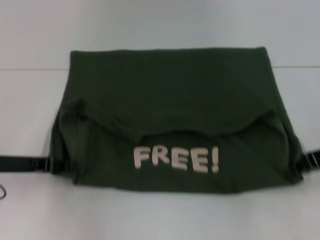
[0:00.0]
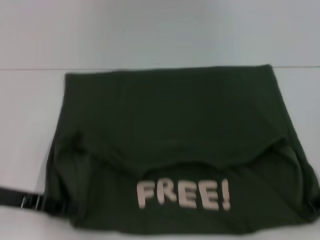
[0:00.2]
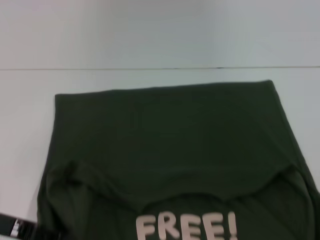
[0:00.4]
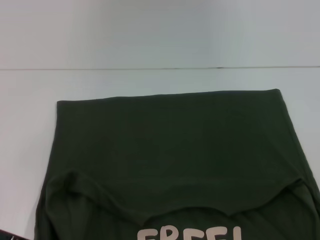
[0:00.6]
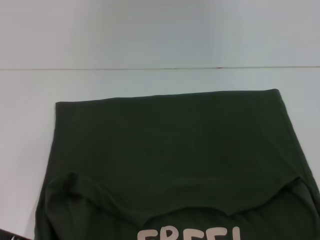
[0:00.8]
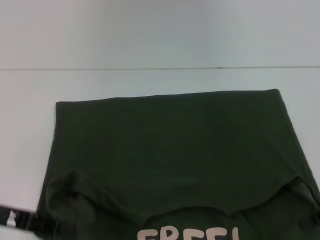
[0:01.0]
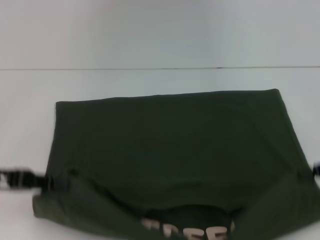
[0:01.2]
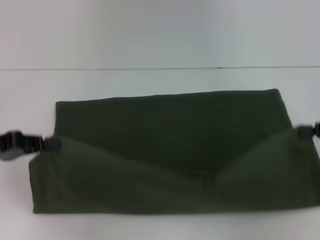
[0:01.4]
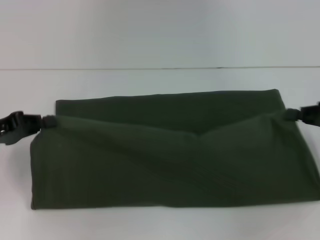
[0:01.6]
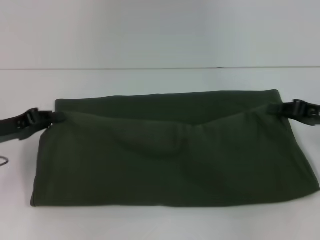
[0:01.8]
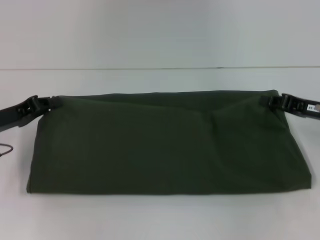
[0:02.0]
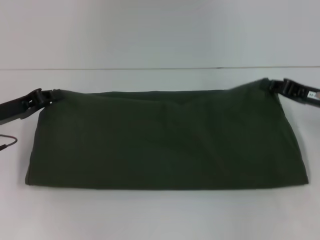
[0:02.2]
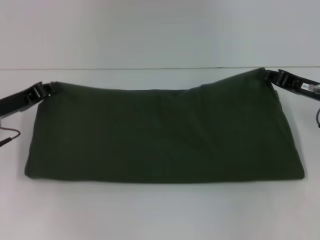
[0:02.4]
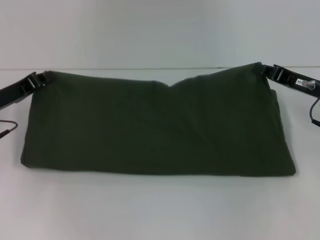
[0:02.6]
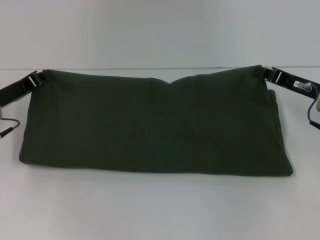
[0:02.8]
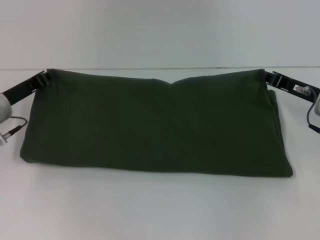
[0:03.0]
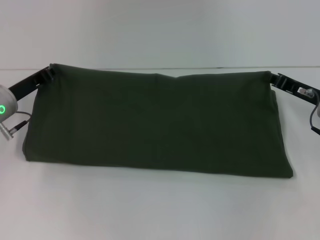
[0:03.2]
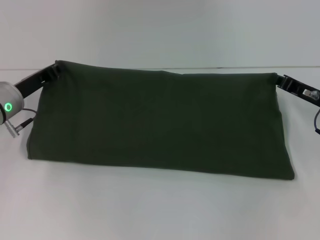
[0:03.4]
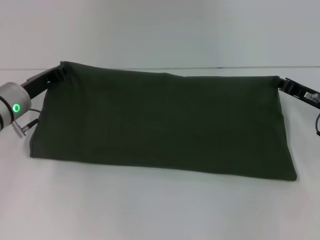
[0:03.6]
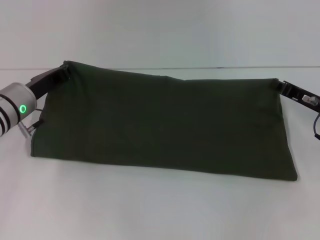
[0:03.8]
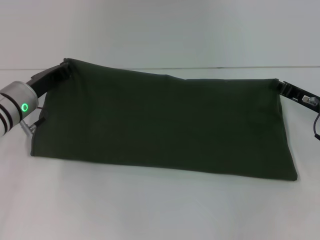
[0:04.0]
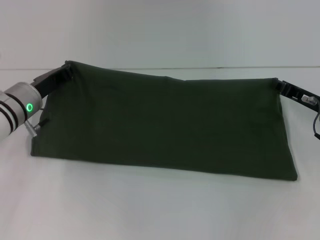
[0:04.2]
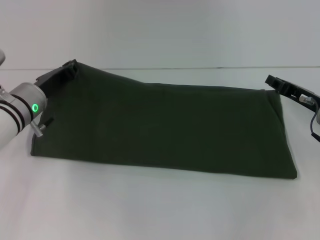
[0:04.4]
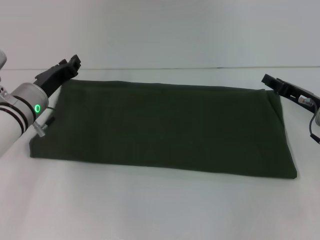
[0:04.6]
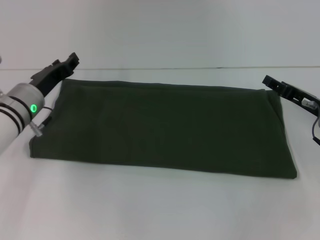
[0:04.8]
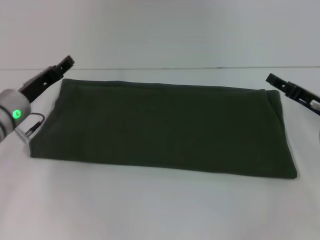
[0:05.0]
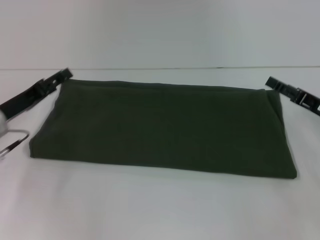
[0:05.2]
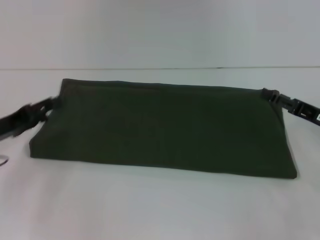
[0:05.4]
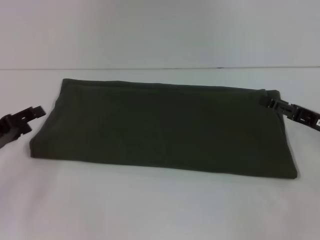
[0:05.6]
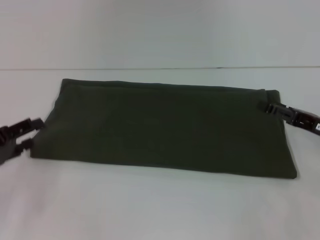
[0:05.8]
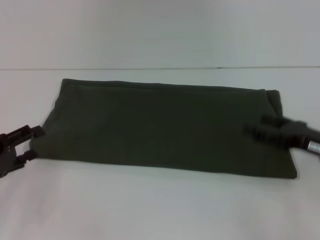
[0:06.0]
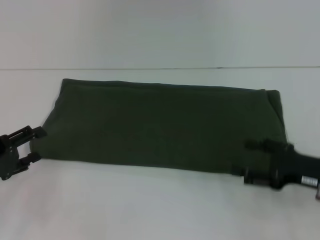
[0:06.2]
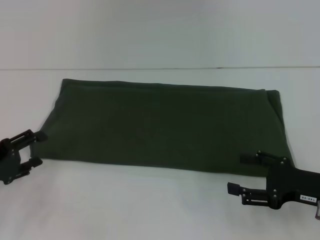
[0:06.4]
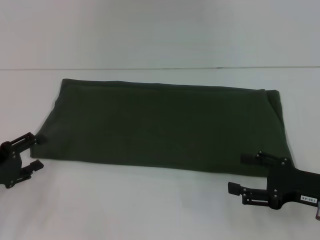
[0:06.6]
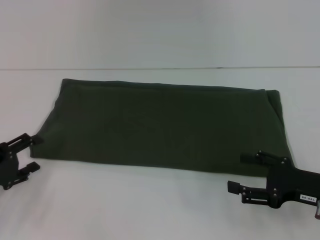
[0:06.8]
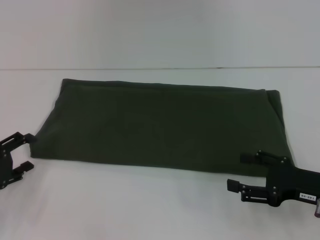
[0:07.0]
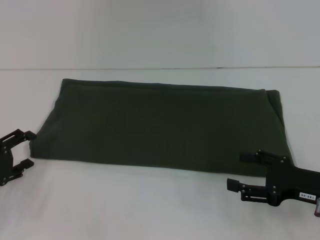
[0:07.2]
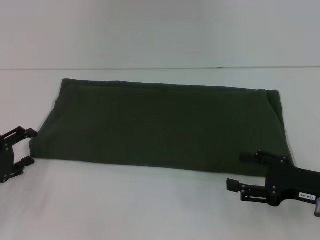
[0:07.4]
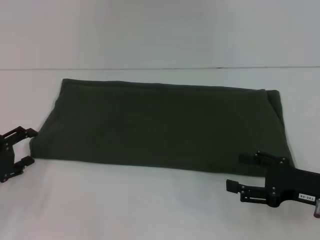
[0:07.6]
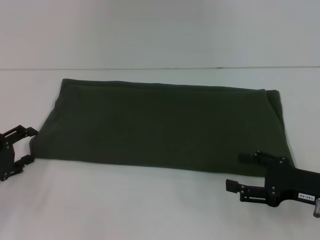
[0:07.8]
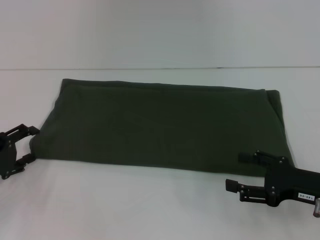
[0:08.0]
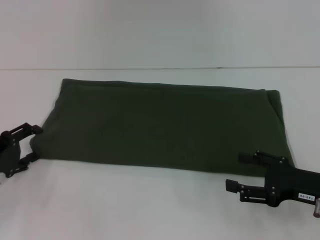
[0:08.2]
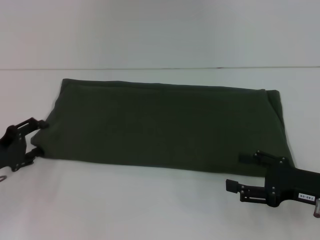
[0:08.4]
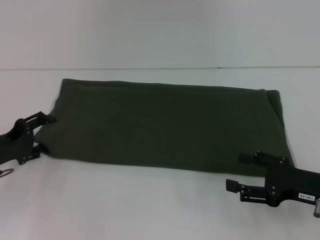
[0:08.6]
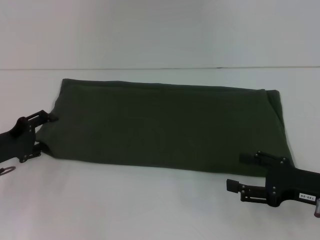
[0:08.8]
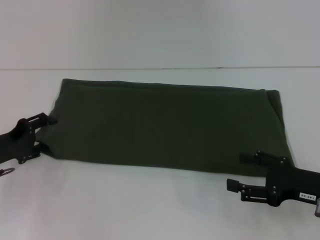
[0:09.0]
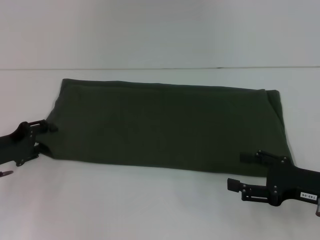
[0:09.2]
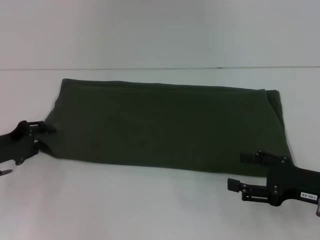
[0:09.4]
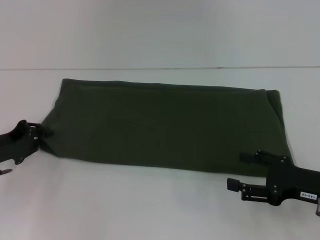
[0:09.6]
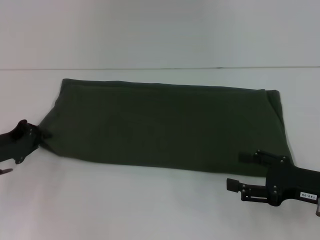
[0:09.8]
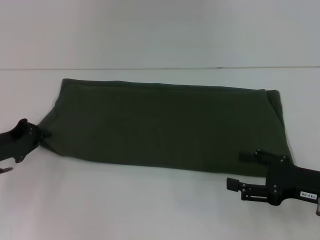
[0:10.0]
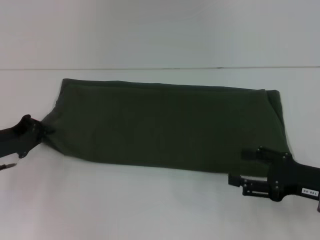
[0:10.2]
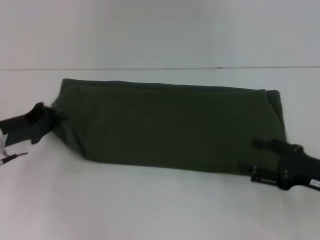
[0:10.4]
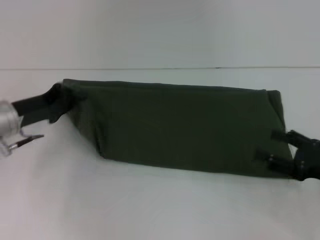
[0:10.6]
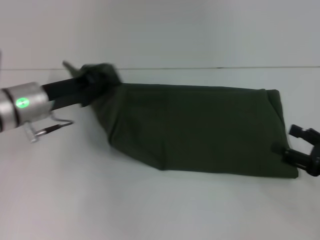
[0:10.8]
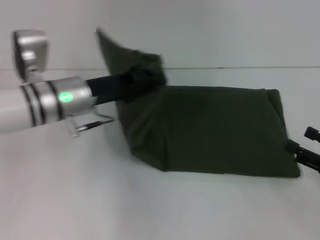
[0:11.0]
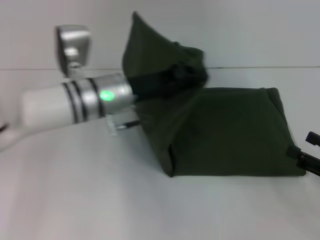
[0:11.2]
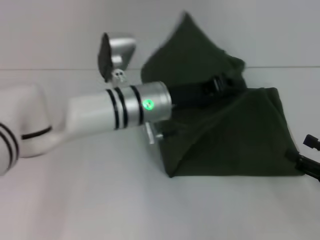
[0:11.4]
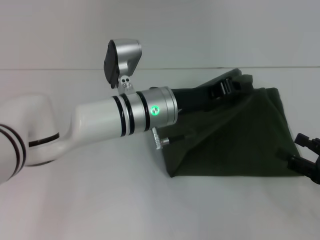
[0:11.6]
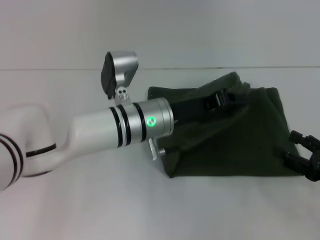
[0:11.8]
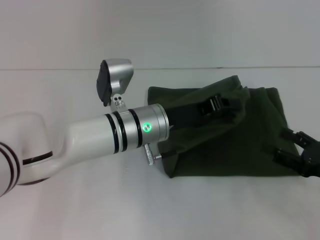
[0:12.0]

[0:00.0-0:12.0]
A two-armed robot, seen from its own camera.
Step, 0:00.8 to 0:04.6: Fold the clothes with your right hand.
0:01.6 to 0:03.0: The right gripper heads to the left, covering roughly 5 cm. Meanwhile the left gripper is displaced forward by roughly 5 cm.
0:03.0 to 0:04.4: The left gripper moves to the right, about 5 cm.
0:04.4 to 0:06.0: The right gripper travels backward by some 5 cm, and opens, while the left gripper goes some 20 cm backward and to the left, and opens.
0:06.0 to 0:07.6: The right gripper shifts by approximately 5 cm.
0:07.6 to 0:09.0: The grippers make only small movements.
0:09.0 to 0:10.4: The left gripper closes up.
0:10.4 to 0:12.0: The left gripper moves to the right, approximately 25 cm.

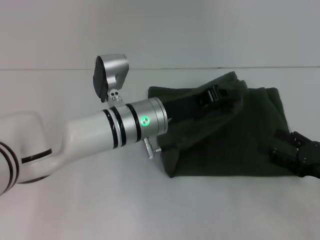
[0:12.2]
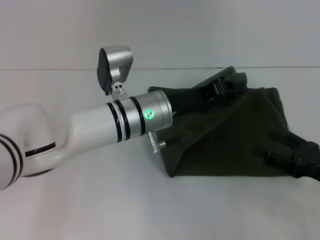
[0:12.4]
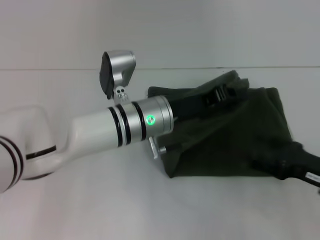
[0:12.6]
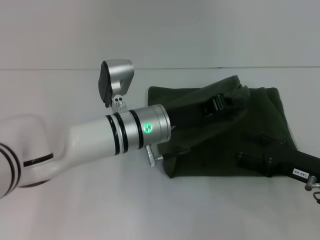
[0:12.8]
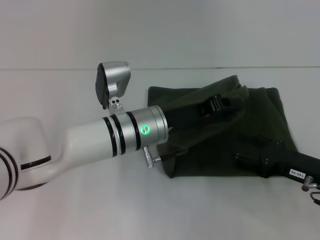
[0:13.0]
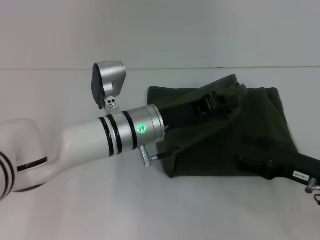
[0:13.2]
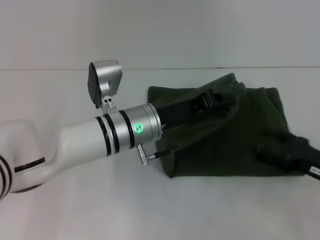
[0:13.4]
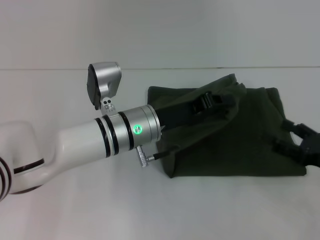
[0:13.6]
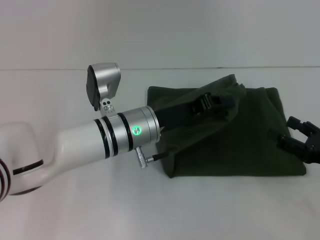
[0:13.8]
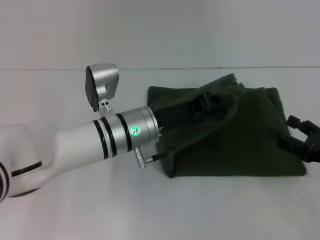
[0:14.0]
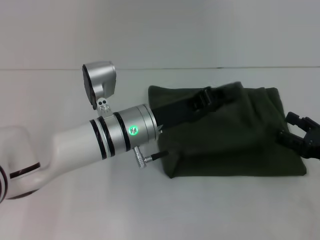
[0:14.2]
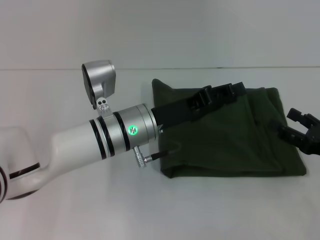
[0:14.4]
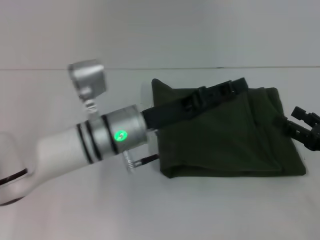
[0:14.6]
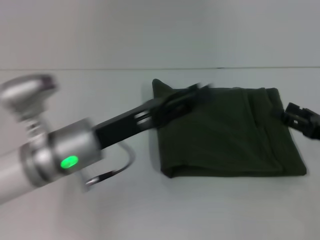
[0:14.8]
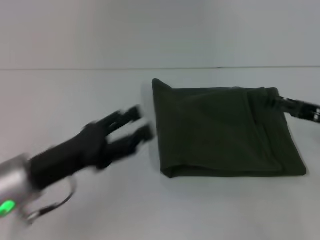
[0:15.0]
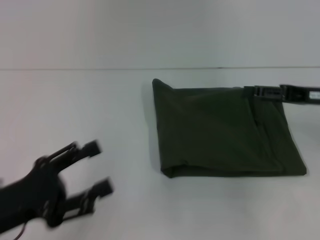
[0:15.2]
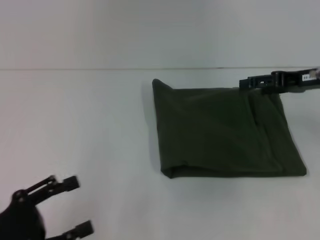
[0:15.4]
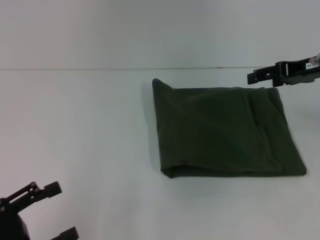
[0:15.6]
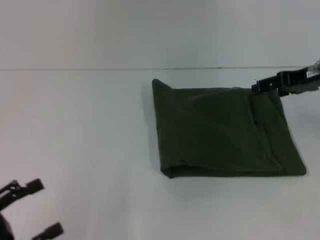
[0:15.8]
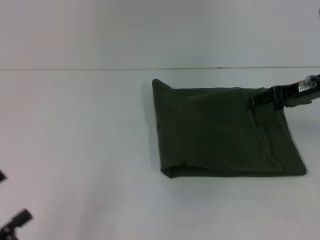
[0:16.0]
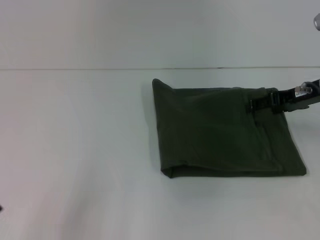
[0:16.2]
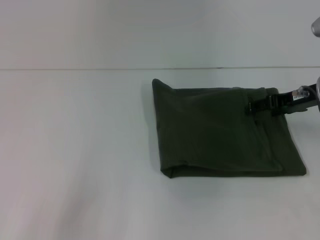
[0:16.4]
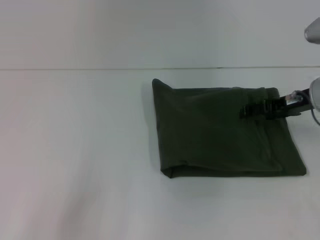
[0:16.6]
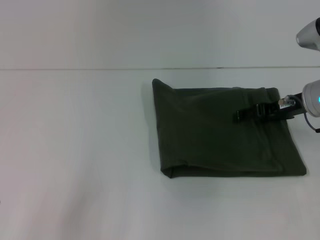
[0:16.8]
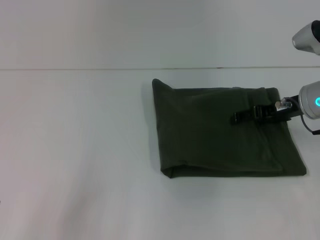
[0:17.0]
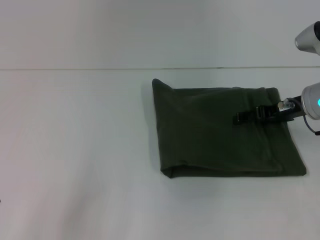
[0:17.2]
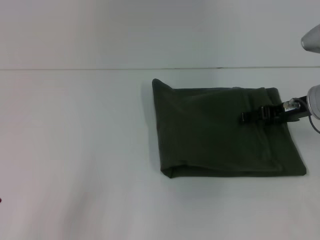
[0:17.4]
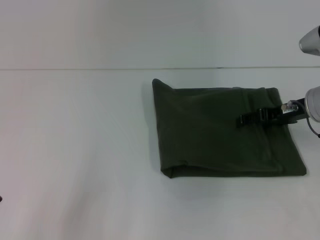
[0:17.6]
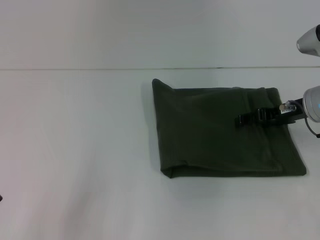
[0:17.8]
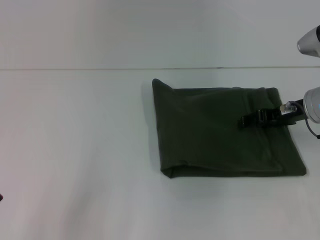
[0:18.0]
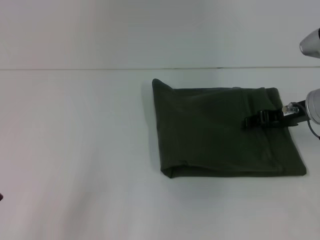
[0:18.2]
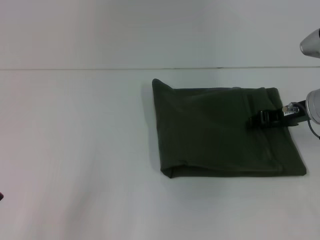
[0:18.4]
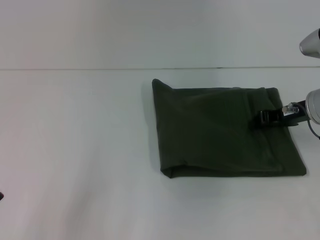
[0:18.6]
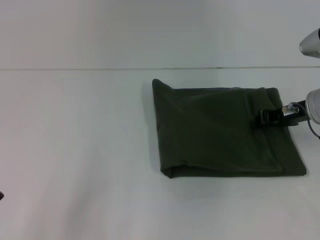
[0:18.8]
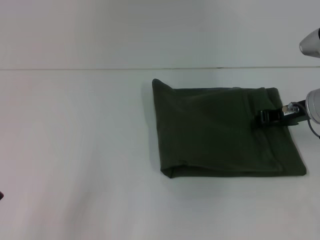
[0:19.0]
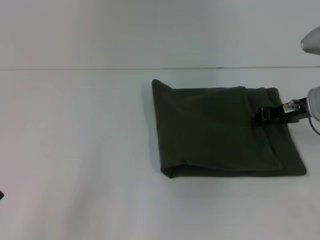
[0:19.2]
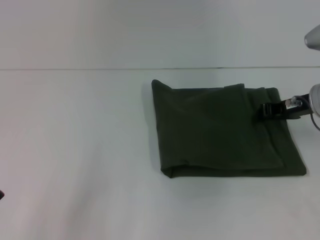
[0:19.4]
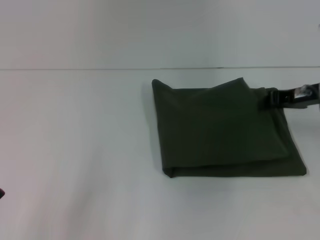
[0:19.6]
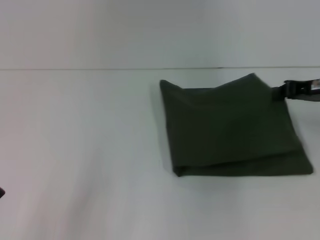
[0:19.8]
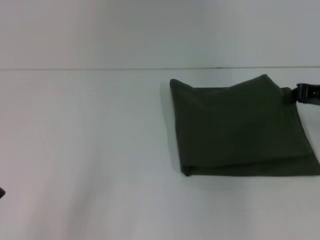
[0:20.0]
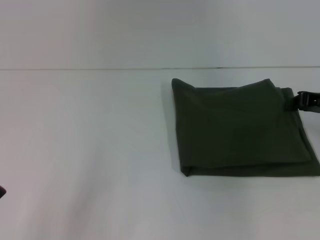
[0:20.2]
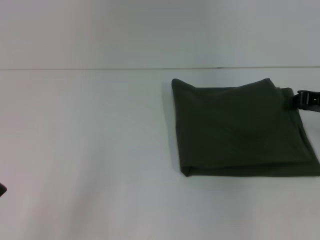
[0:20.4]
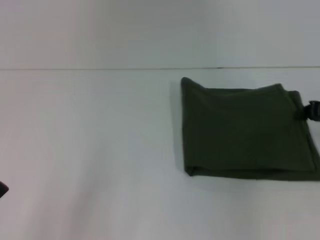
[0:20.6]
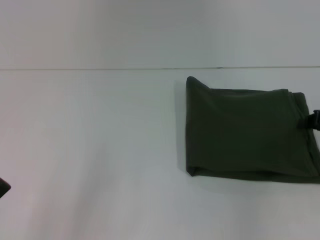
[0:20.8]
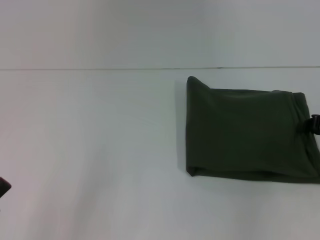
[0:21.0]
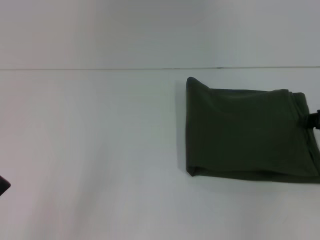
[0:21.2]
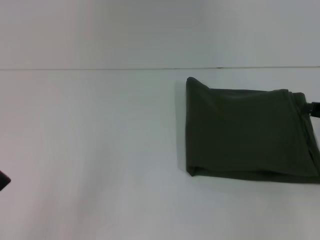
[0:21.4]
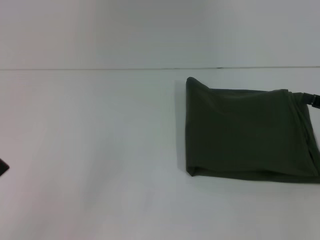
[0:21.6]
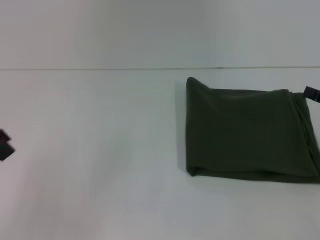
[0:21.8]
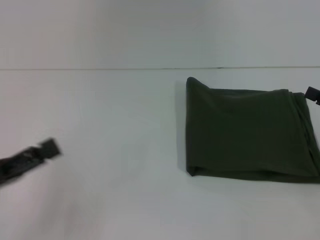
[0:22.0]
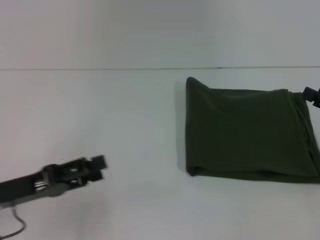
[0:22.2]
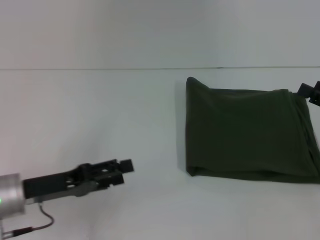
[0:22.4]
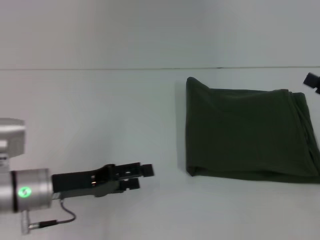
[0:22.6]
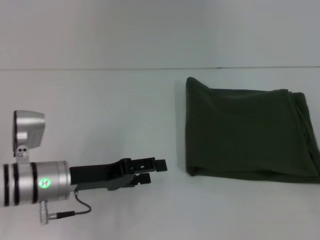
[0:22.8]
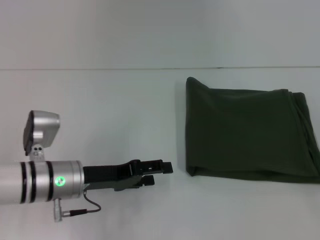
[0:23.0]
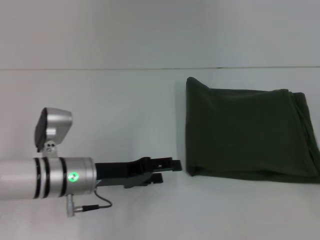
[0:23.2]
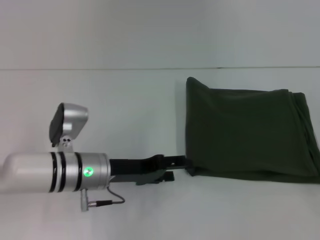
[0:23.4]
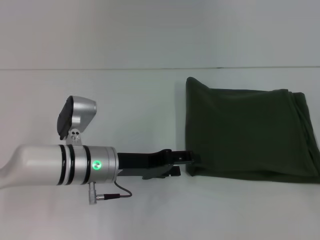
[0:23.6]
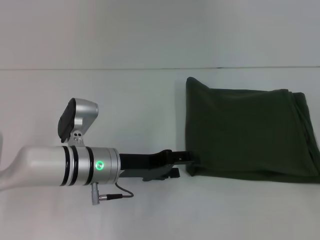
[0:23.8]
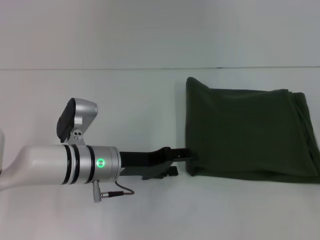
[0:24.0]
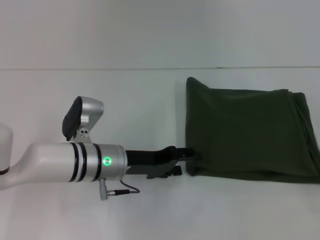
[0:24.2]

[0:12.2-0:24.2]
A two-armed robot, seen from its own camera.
Step, 0:12.2 to 0:14.2: Fold the clothes with your left hand.
0:12.2 to 0:13.8: The grippers move only a little.
0:13.8 to 0:15.2: The left gripper travels to the left and backward by approximately 25 cm, and opens up; the right gripper goes roughly 15 cm forward and upward.
0:15.2 to 0:16.6: The left gripper moves backward and to the left, approximately 15 cm. The right gripper ends up about 5 cm from where it was.
0:16.6 to 0:18.2: The grippers make only small movements.
0:18.2 to 0:19.8: The right gripper changes place by roughly 5 cm, and closes up.
0:19.8 to 0:21.2: The right gripper moves to the right, approximately 5 cm.
0:21.2 to 0:22.6: The left gripper is displaced forward and to the right by approximately 20 cm; the right gripper travels backward by about 5 cm, and opens.
0:22.6 to 0:24.2: The left gripper shifts some 10 cm to the right and forward.
